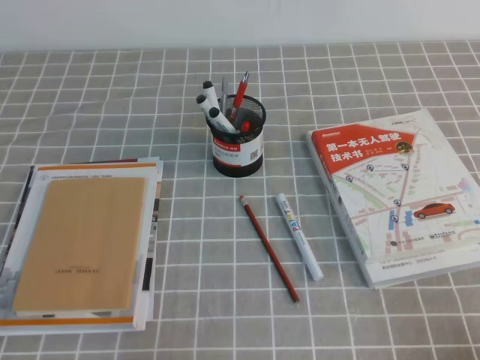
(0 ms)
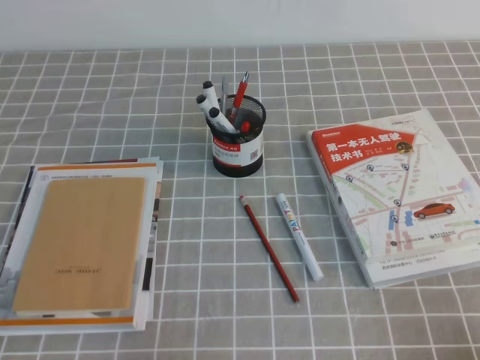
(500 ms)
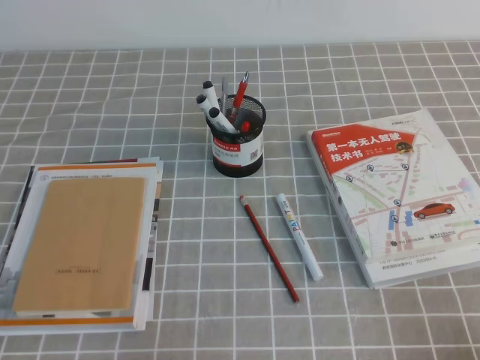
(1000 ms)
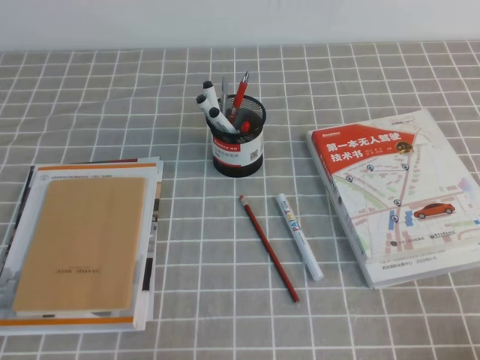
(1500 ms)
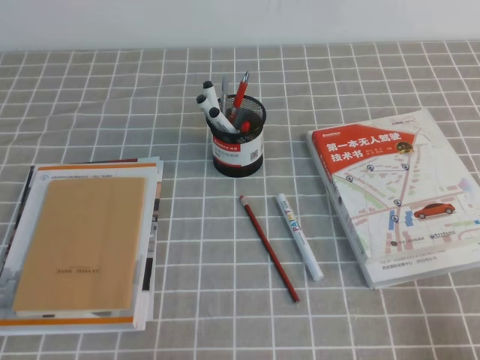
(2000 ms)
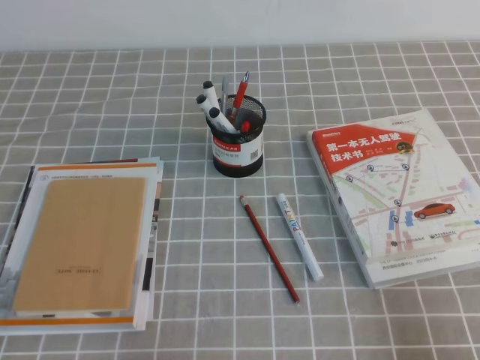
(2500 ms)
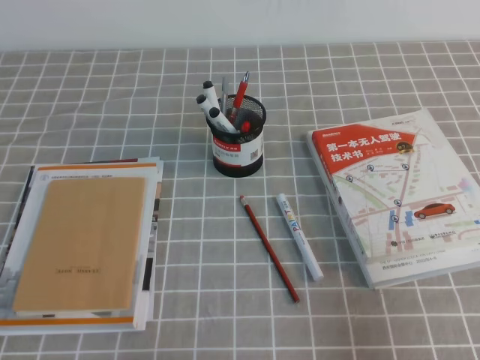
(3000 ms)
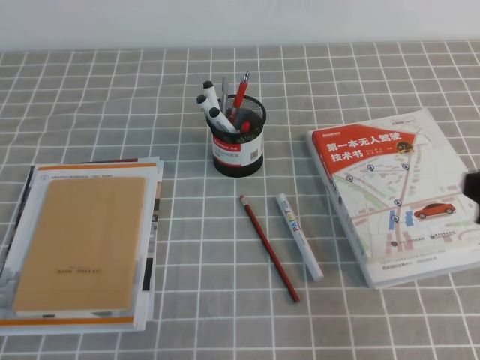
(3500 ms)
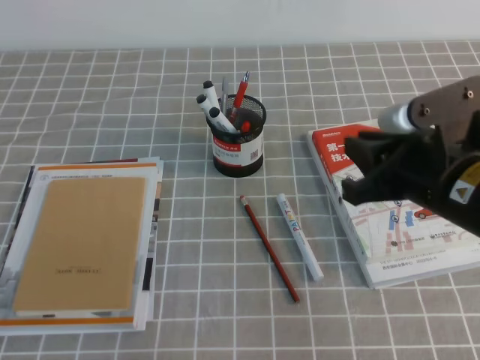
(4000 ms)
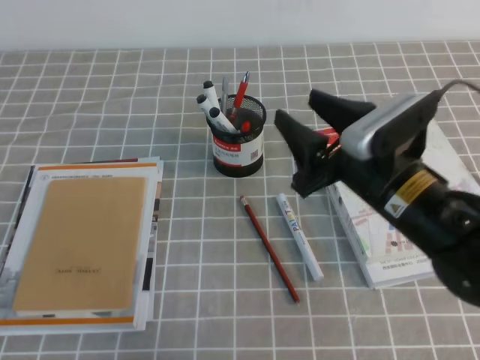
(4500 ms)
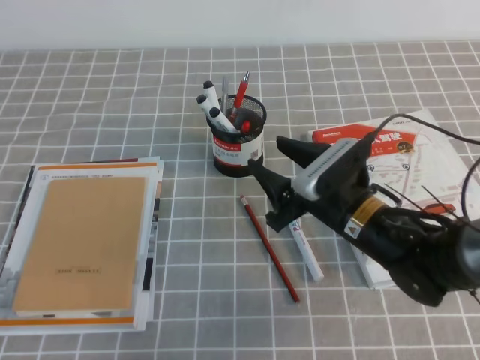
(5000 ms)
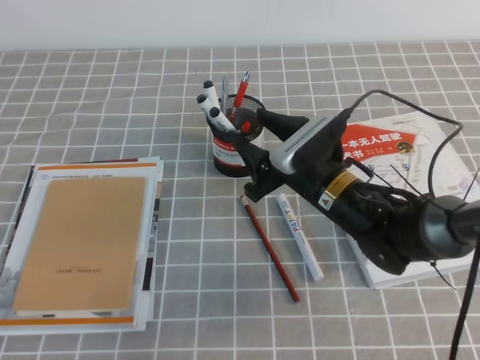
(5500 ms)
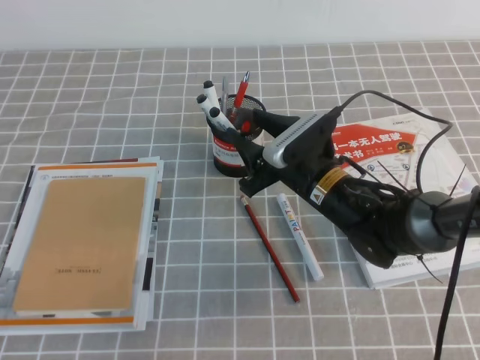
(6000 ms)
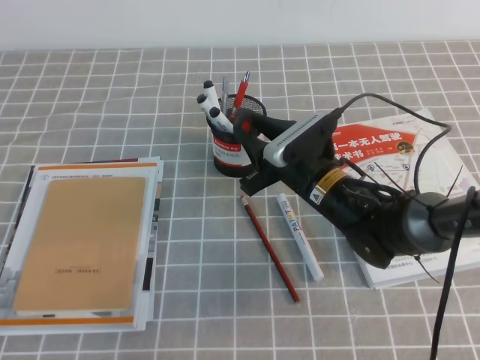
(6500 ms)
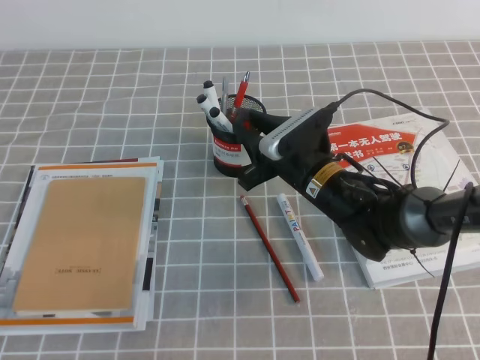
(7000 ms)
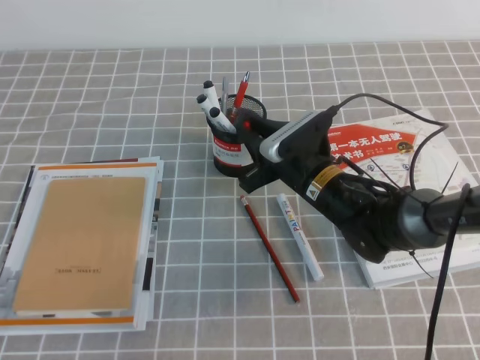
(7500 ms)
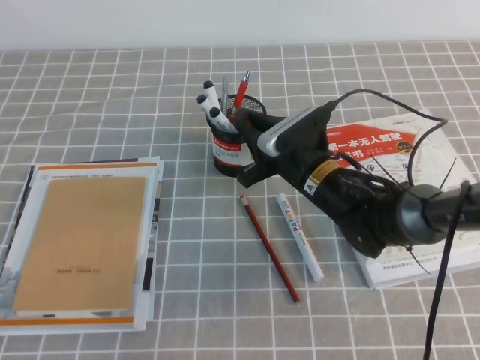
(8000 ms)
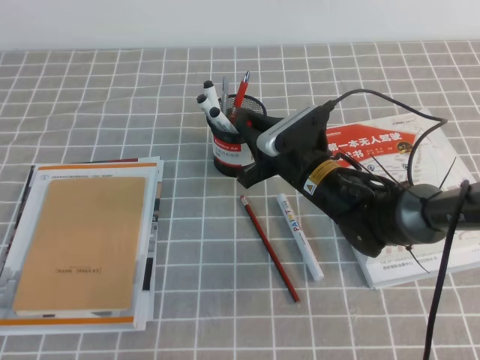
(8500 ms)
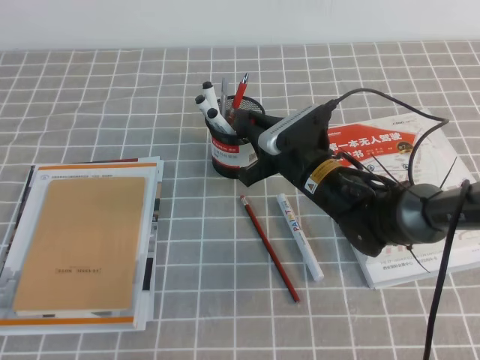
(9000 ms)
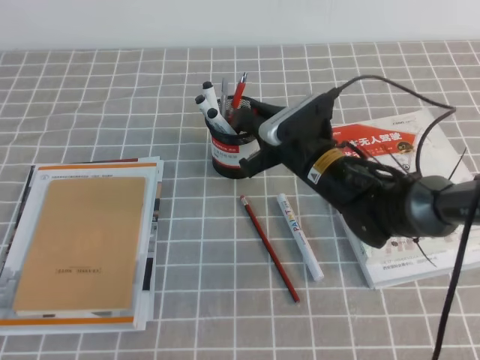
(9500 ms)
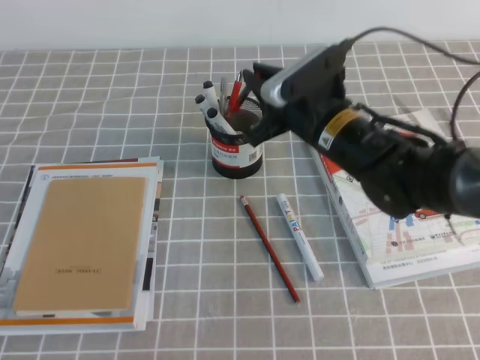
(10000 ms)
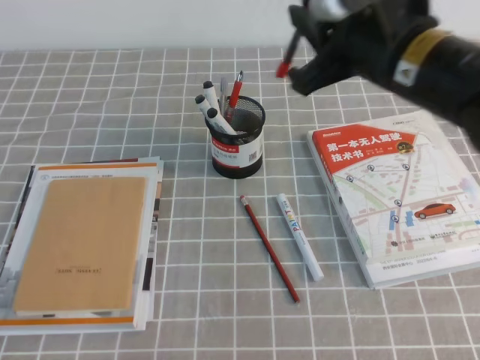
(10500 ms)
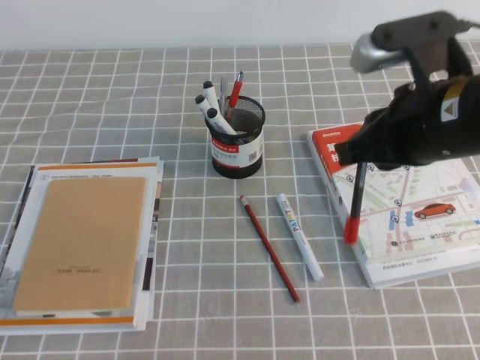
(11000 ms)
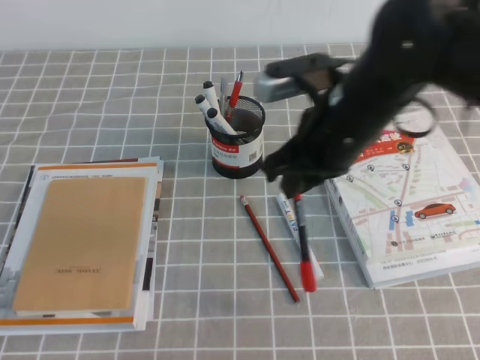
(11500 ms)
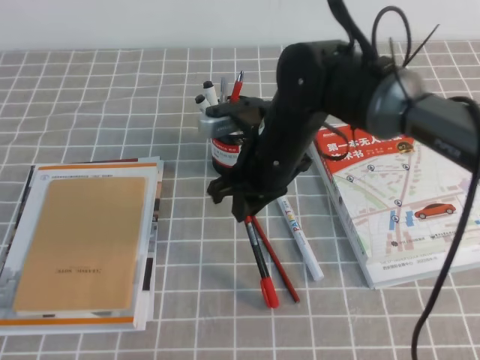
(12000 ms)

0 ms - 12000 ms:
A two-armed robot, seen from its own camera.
2000 ms - 4000 ms: The right gripper travels forward, to the left and upward by about 25 cm.
4000 ms - 6000 ms: The right gripper heads downward, forward and to the left, covering roughly 20 cm, and opens its fingers.
6000 ms - 8000 ms: The right gripper closes its fingers.
8000 ms - 10000 ms: The right gripper heads upward, covering approximately 10 cm.

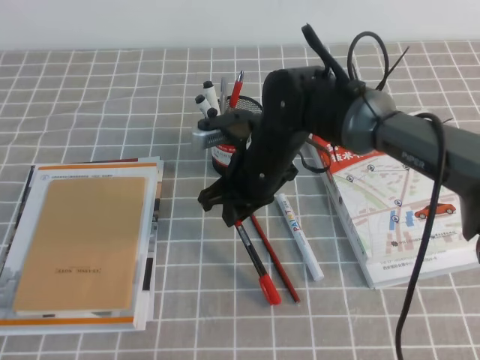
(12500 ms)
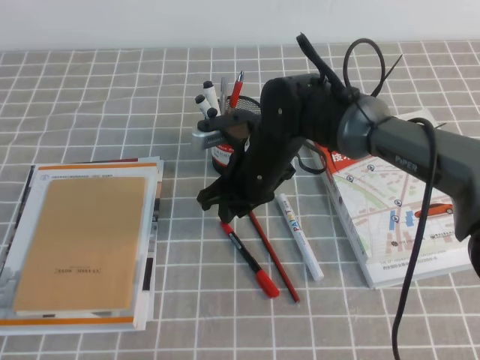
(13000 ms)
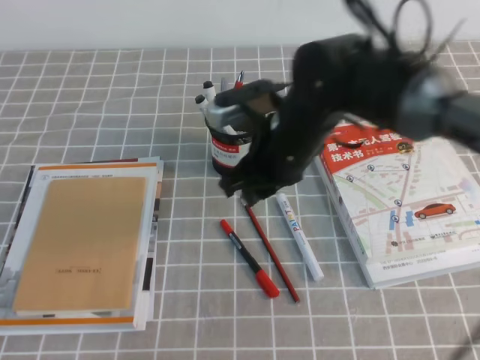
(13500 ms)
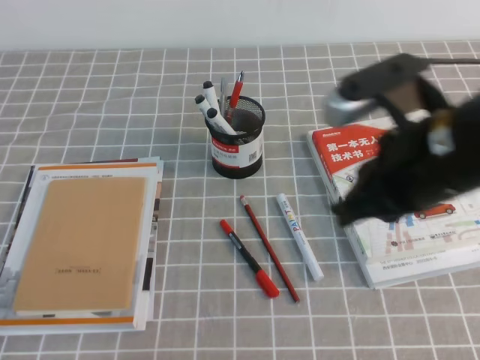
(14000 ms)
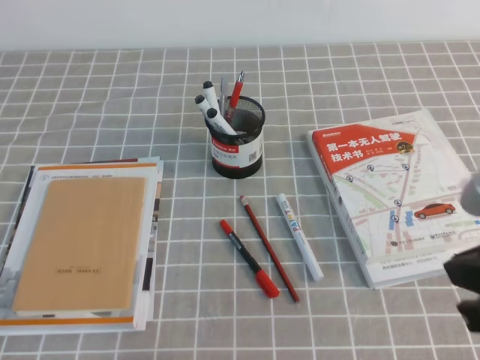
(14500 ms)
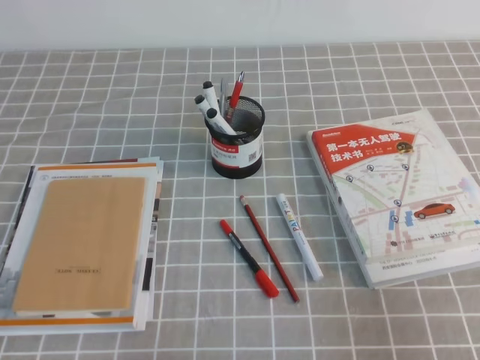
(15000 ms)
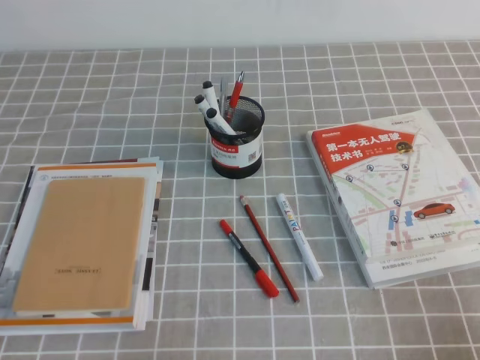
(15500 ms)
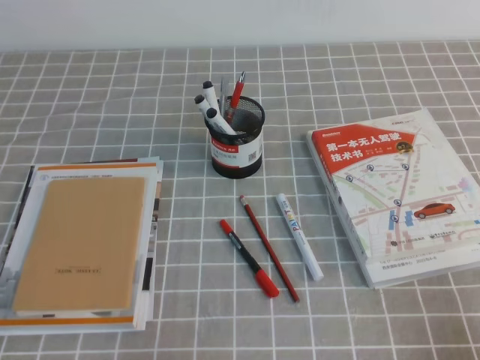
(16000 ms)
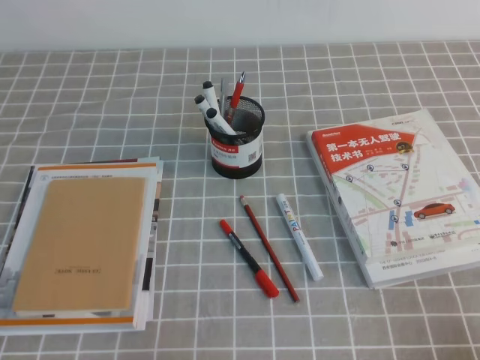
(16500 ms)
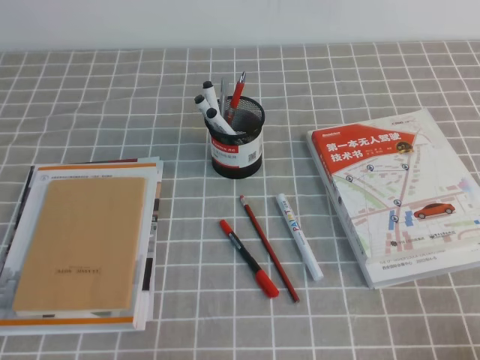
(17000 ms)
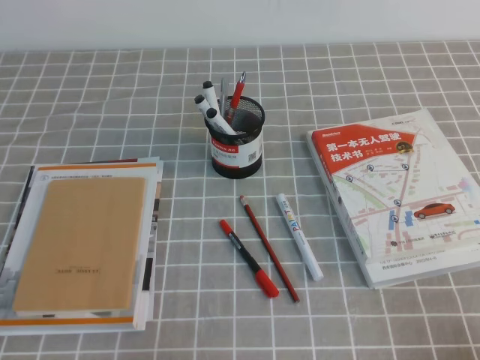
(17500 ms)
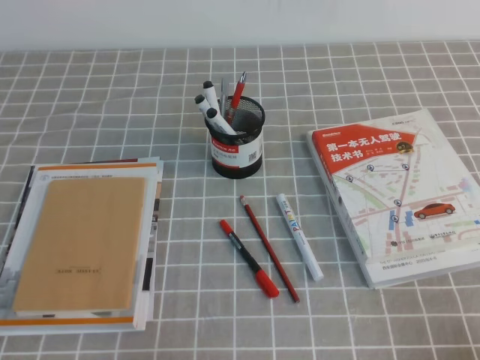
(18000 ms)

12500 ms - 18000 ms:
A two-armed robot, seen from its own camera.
Step, 12500 ms - 18000 ms: Pick up the pen from the pen holder.
12500 ms - 14500 ms: The right gripper heads backward, to the right and upward, covering approximately 35 cm.
14500 ms - 16000 ms: The right gripper goes about 20 cm downward, to the right and backward.

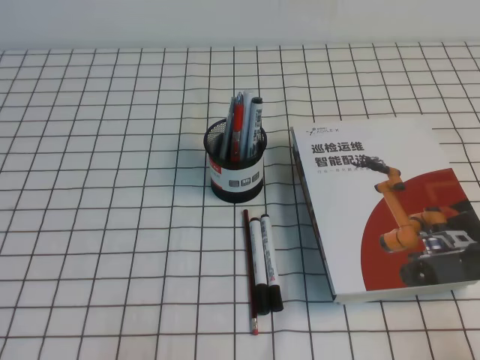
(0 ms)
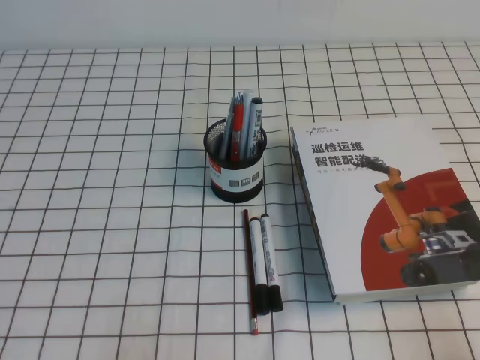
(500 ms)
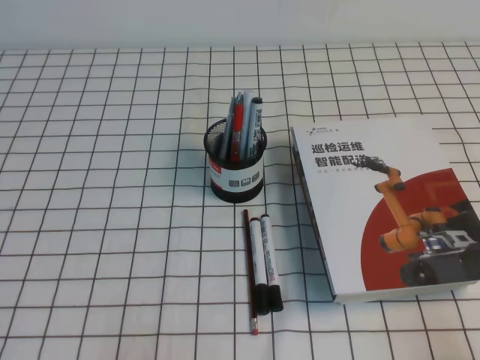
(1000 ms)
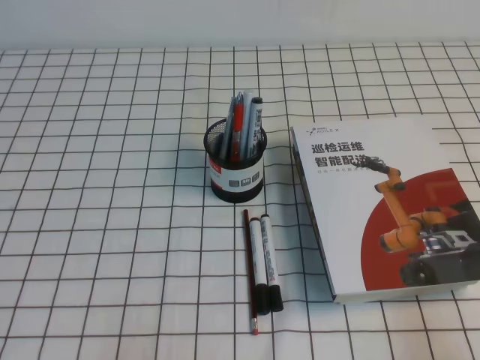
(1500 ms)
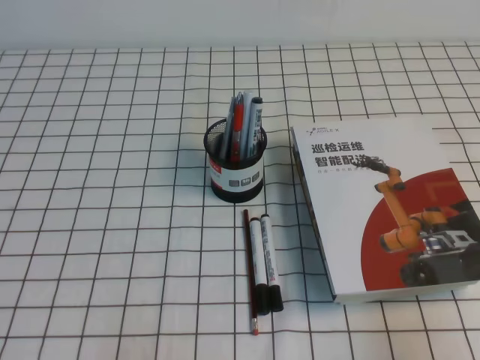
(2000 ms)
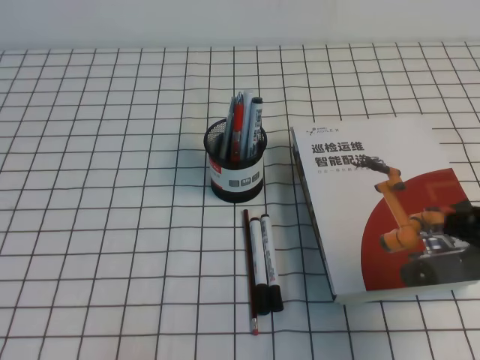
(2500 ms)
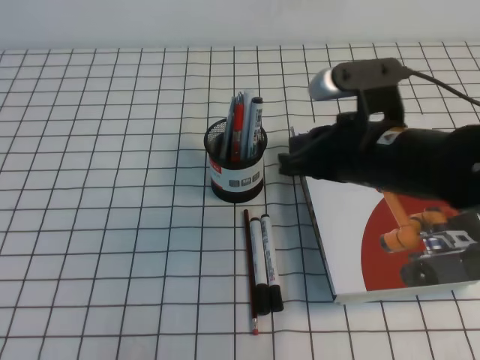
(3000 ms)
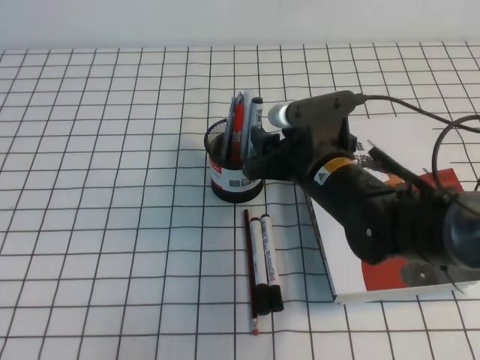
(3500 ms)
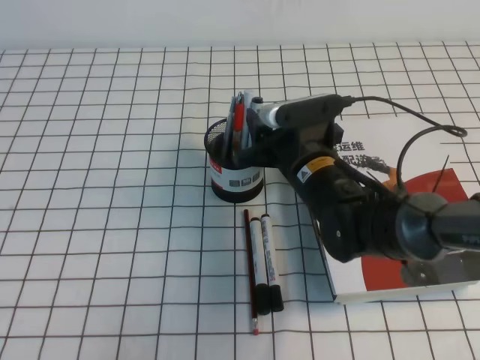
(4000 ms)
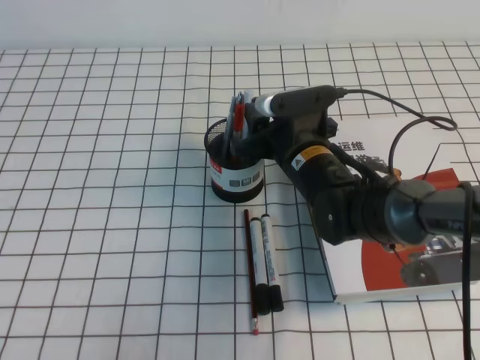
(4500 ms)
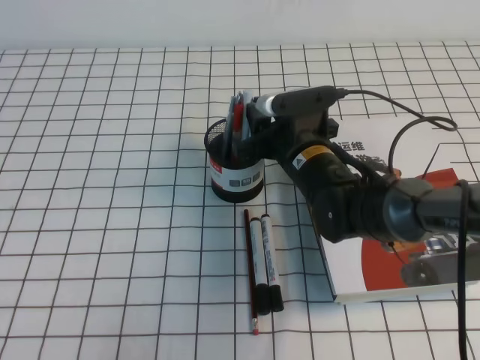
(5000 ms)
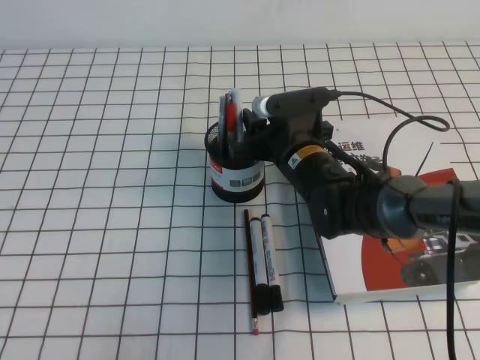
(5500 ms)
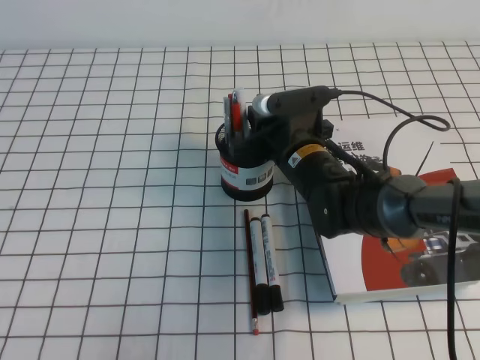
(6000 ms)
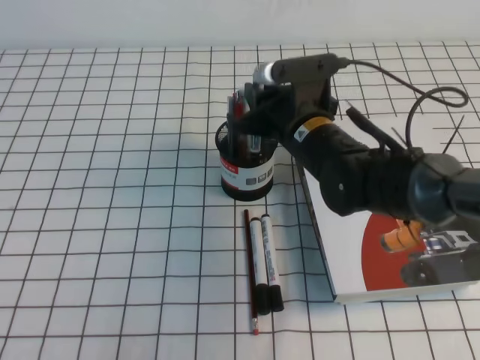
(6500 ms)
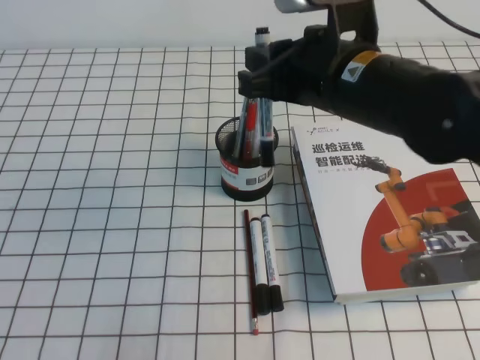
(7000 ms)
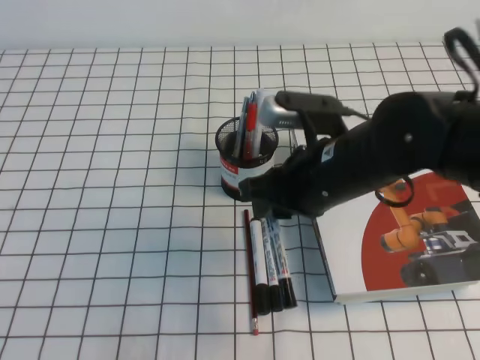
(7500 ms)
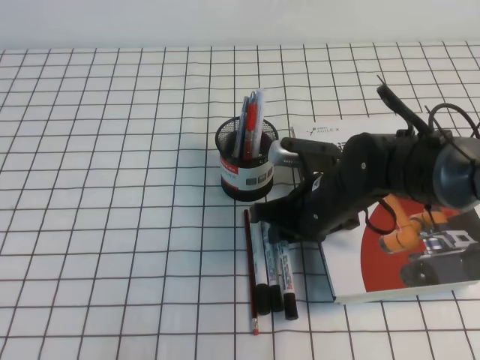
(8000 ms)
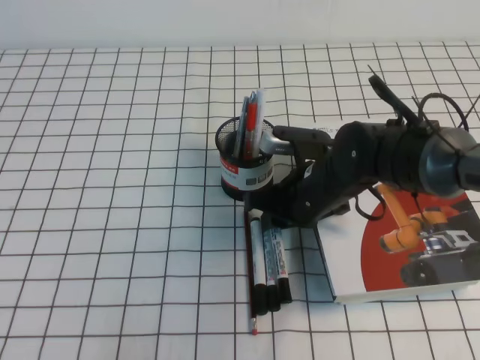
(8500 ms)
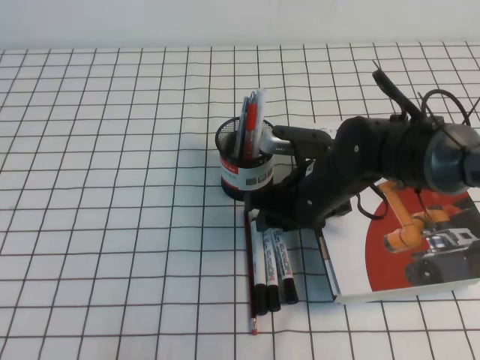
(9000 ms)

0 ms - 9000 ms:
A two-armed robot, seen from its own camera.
2000 ms - 4500 ms: The right gripper moves forward and to the left, roughly 40 cm, and opens.
4500 ms - 7000 ms: The right gripper shifts about 15 cm upward, and closes up.
7000 ms - 9000 ms: The right gripper shifts some 15 cm downward, and opens up.
